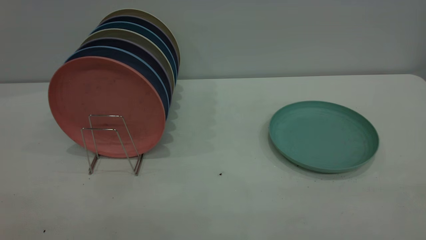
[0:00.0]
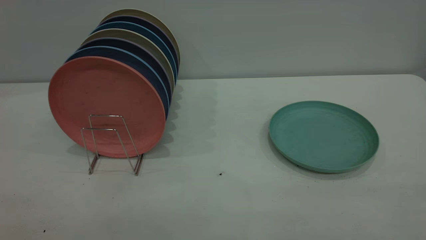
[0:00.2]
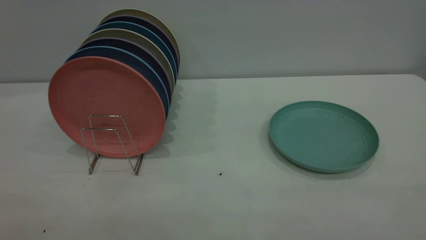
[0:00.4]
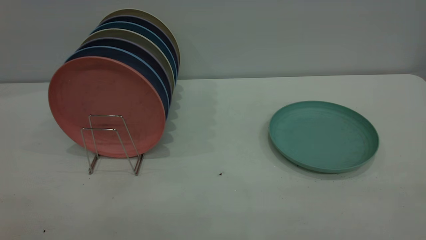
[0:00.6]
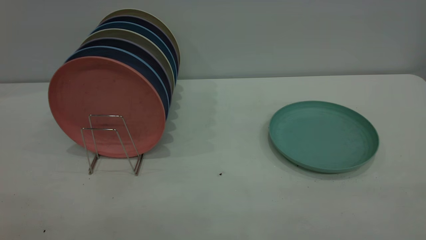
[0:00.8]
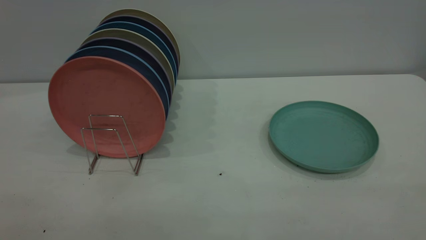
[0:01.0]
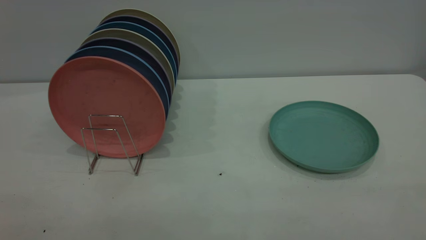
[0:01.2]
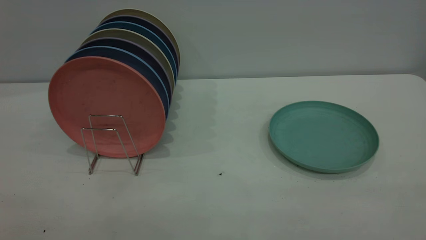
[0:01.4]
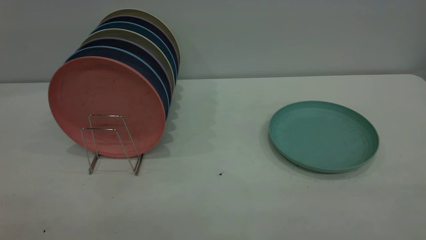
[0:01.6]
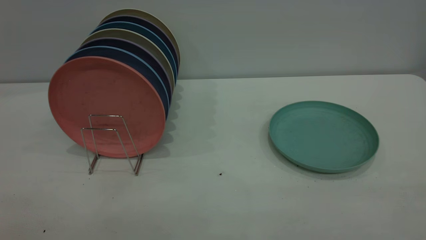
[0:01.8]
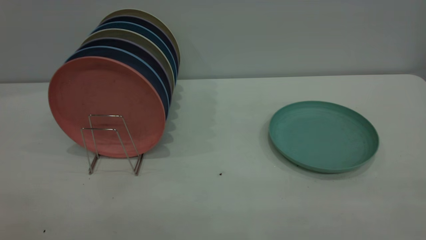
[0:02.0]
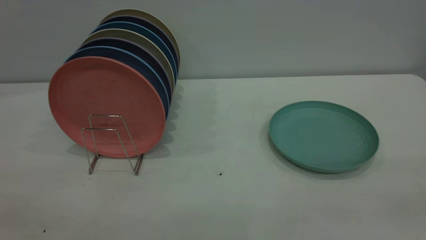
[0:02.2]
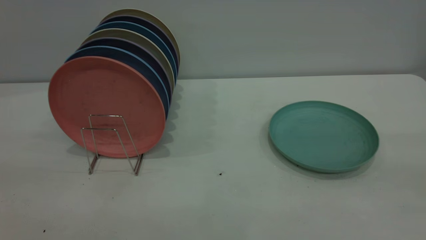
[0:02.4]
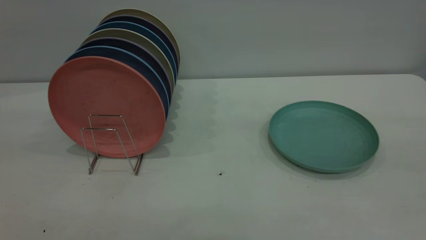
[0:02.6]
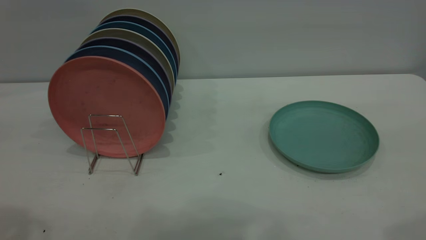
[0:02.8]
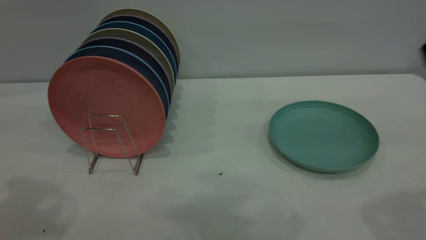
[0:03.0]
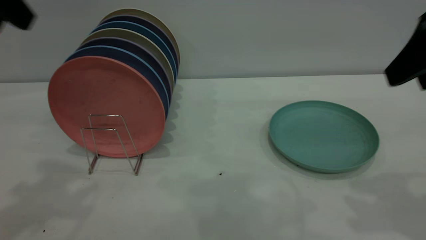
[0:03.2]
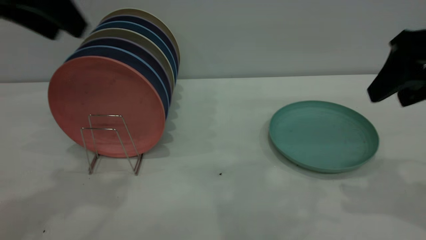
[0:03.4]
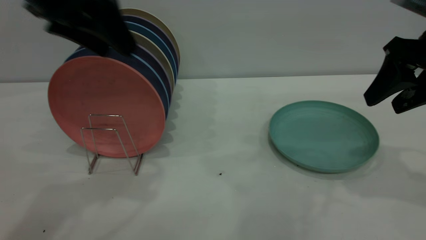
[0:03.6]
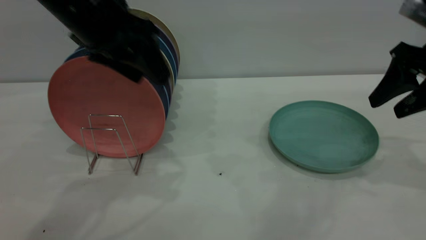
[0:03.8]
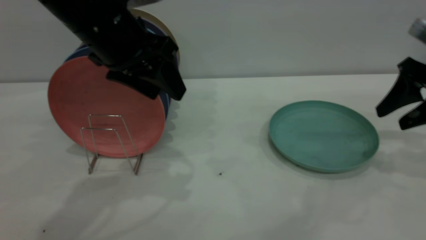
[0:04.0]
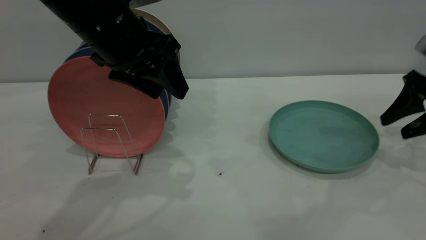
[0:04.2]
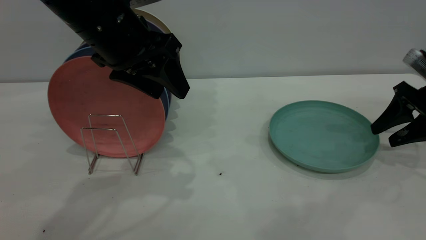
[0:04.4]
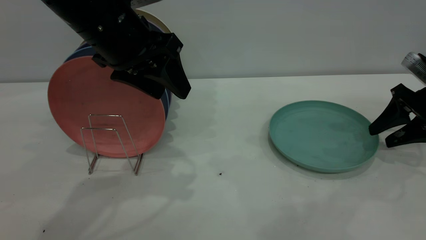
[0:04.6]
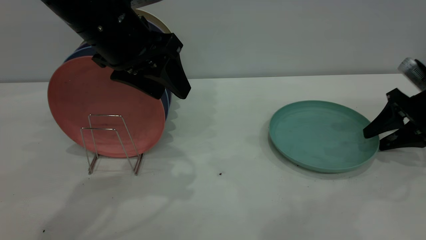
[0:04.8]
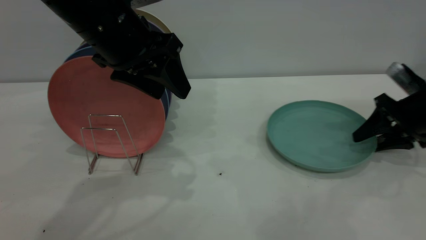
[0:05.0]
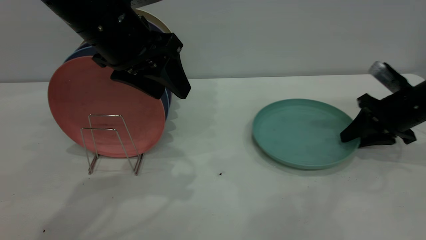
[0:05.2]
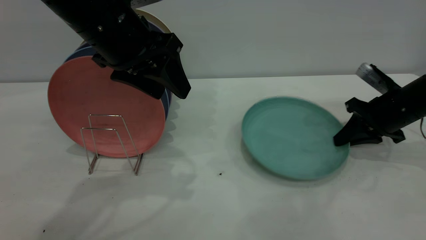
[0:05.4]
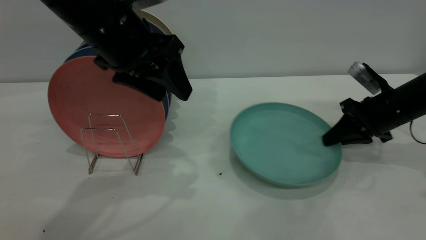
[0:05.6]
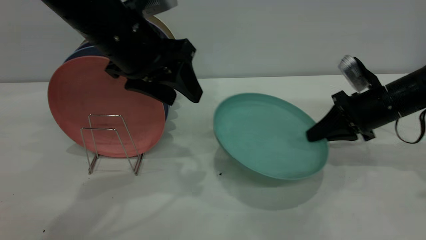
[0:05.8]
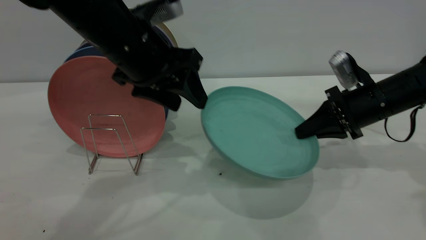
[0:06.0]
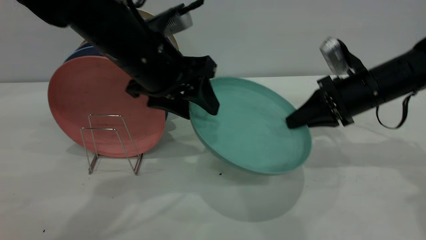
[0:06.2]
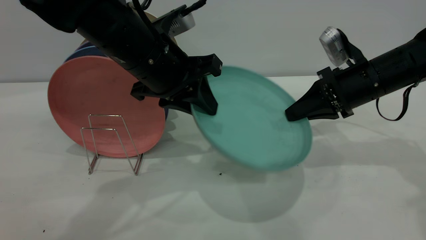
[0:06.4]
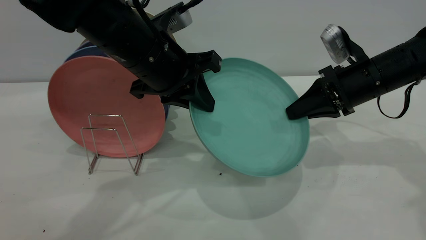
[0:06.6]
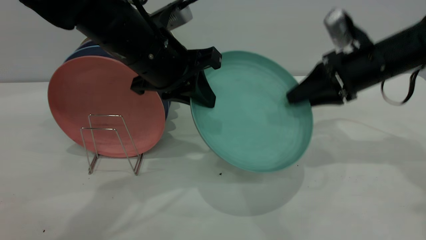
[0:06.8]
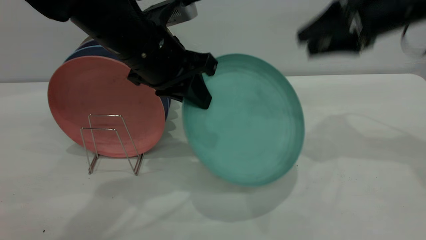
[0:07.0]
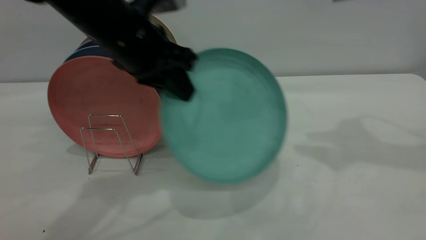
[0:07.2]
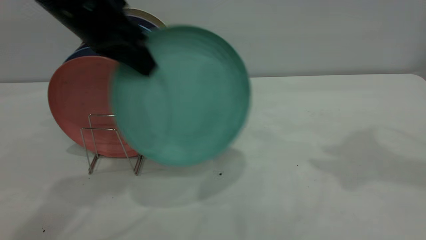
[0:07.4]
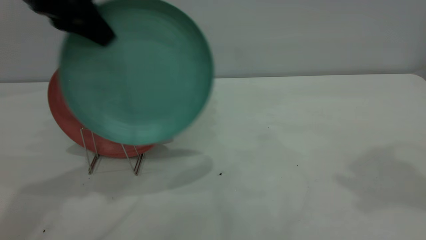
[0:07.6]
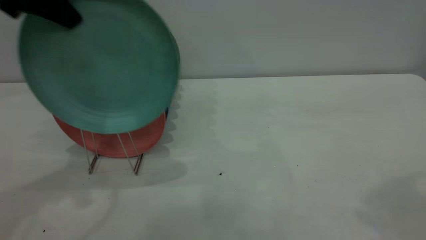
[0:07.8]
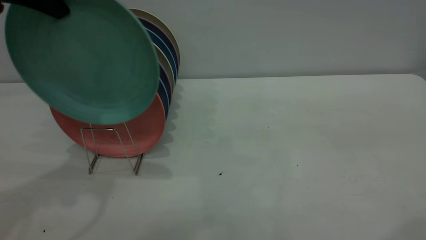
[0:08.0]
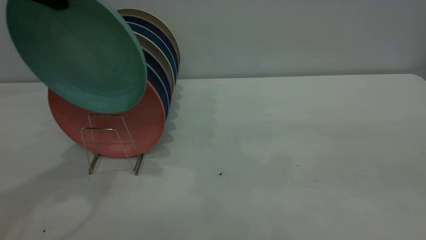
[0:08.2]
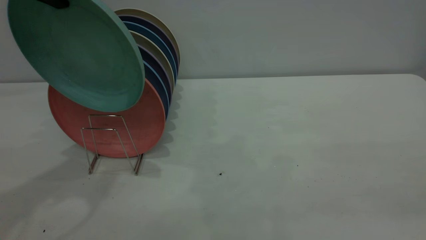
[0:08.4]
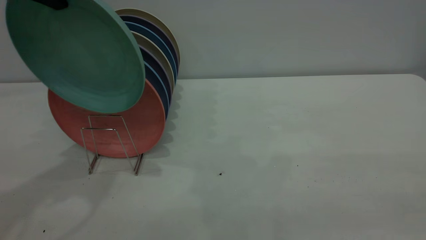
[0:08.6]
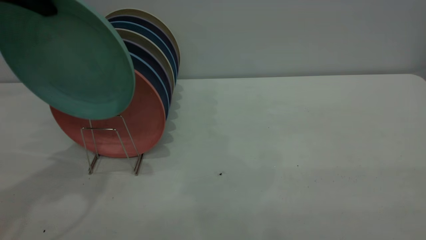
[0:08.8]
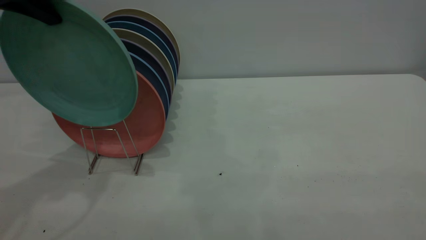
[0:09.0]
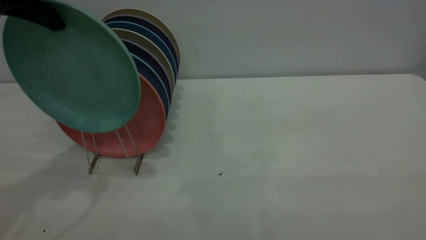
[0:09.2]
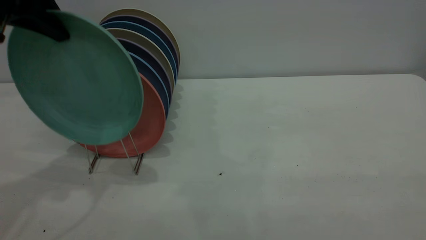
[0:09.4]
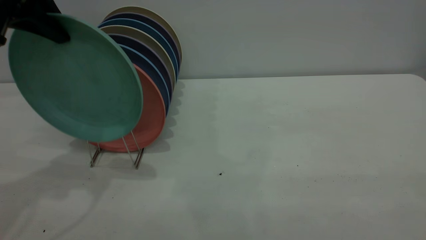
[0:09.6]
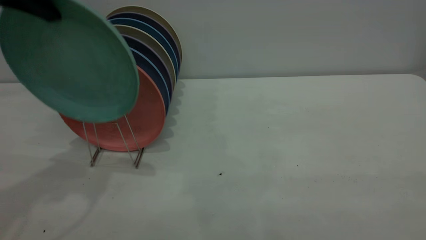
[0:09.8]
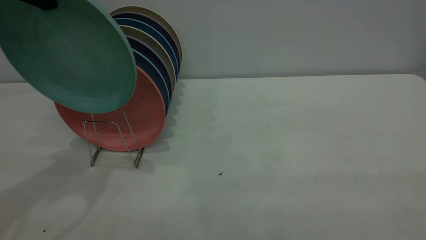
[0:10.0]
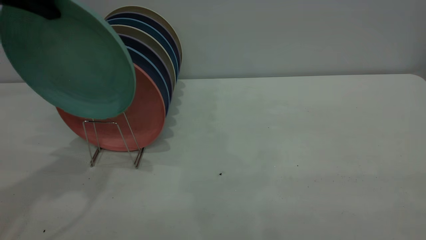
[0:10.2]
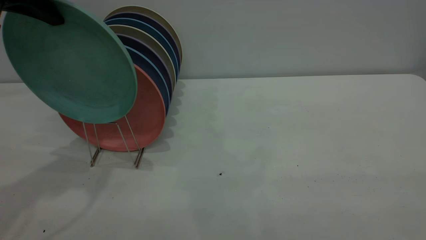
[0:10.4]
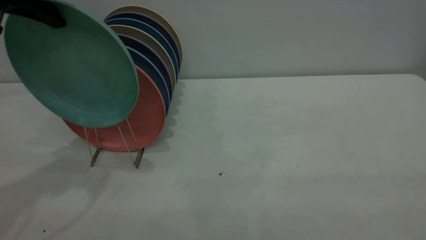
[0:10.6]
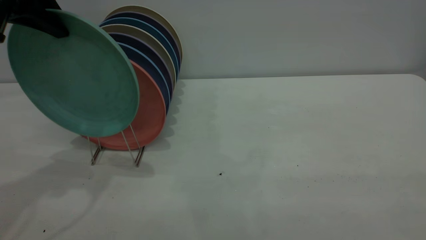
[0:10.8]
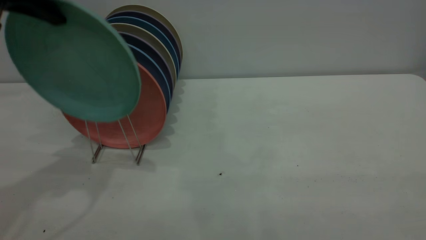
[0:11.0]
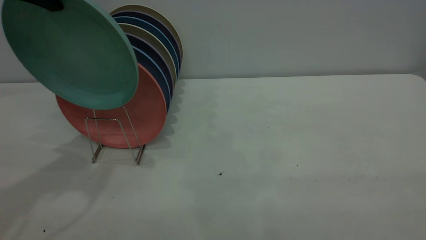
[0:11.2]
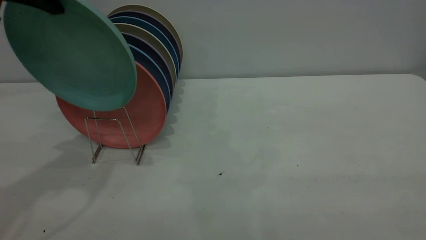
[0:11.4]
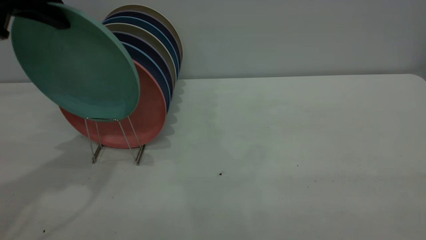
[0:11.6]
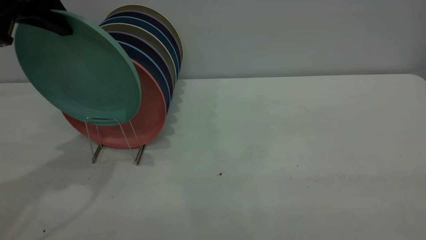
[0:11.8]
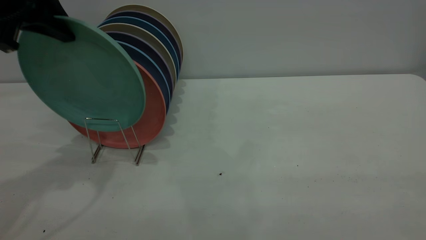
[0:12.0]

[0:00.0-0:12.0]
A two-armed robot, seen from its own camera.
Task of the whole recording: the right gripper grasp the green plate, the right gripper pass the green plate to the left gripper, and the left gripper place the green plate on the plate rack.
Step, 0:00.0 to 0:05.6: Pick up the plate with the right gripper.
Step, 0:05.8 to 0:06.8: Pass the plate from the right gripper to the left gripper.
0:00.0 to 0:01.6: Both grippers stay put.
0:03.0 to 0:04.4: The left gripper is displaced to the right, downward and forward by about 20 cm; the right gripper moves downward, forward and to the right, approximately 30 cm.
0:04.4 to 0:06.0: The right gripper moves to the left, approximately 10 cm, and closes.
0:06.0 to 0:07.6: The right gripper moves upward, approximately 35 cm, and opens; the left gripper moves to the left and upward, some 15 cm, and closes.
0:07.6 to 0:09.0: The right gripper is displaced backward by some 30 cm.
0:09.0 to 0:12.0: There are only small adjustments of the grippers.

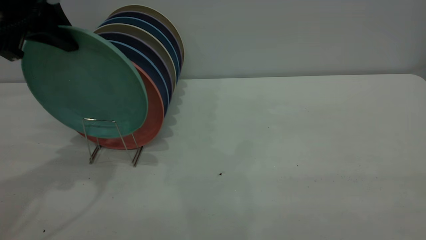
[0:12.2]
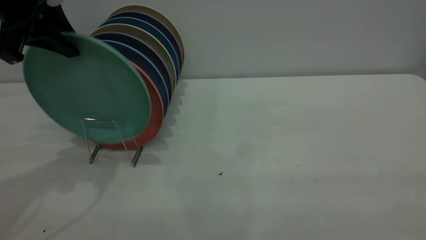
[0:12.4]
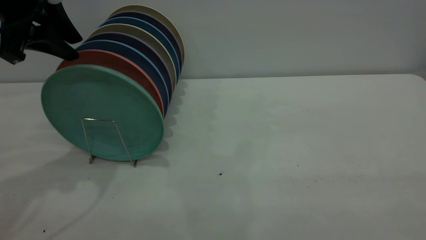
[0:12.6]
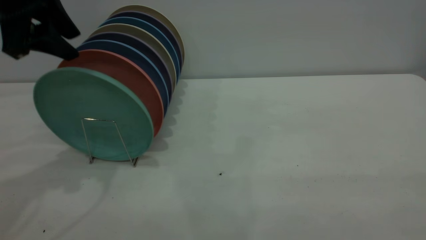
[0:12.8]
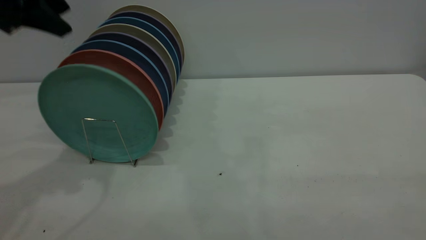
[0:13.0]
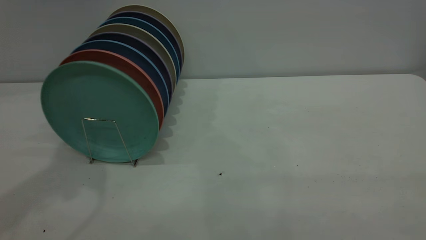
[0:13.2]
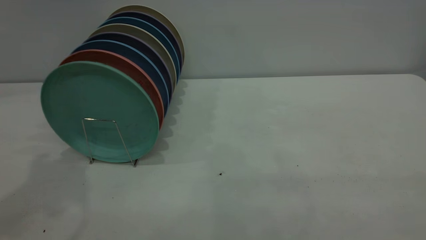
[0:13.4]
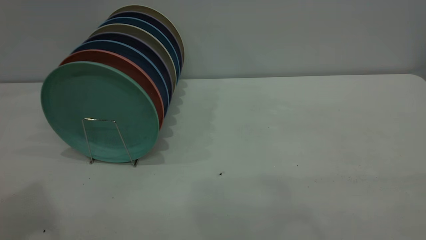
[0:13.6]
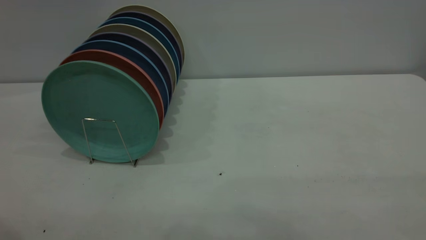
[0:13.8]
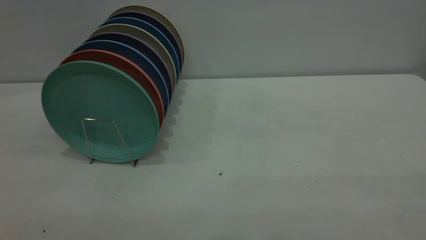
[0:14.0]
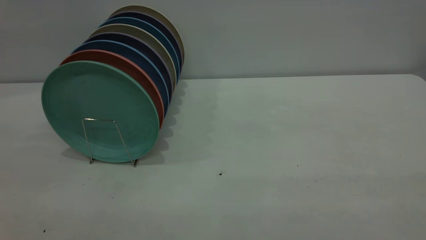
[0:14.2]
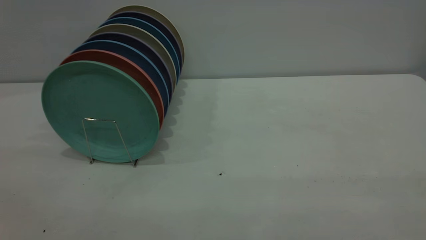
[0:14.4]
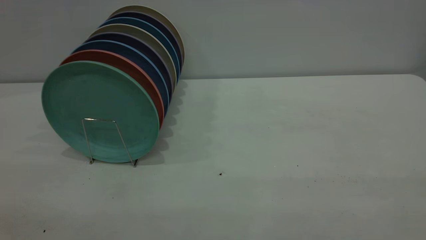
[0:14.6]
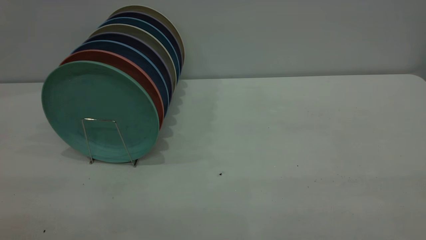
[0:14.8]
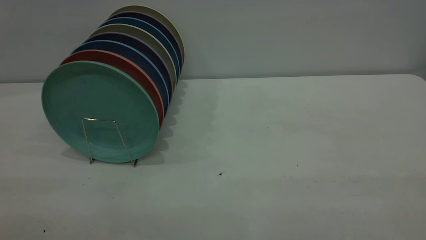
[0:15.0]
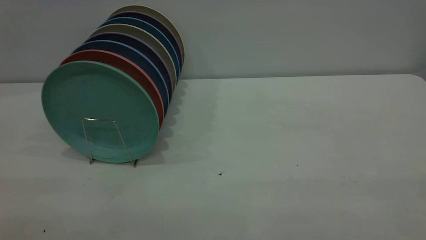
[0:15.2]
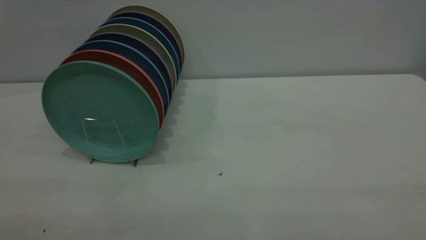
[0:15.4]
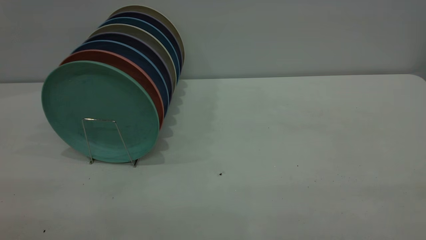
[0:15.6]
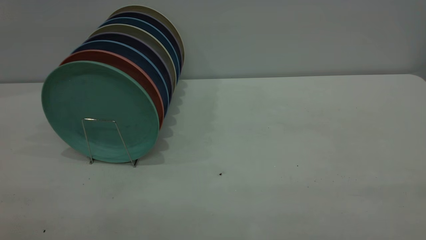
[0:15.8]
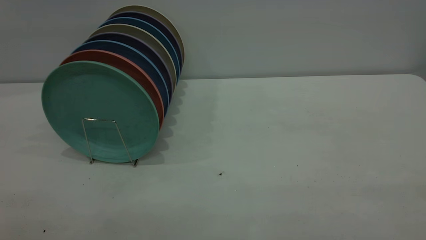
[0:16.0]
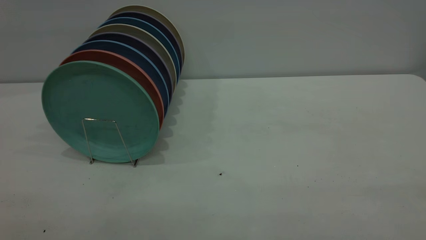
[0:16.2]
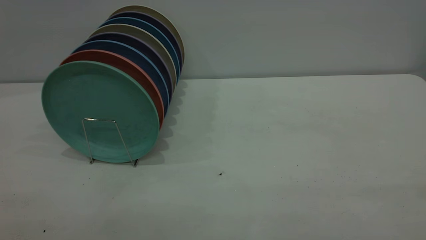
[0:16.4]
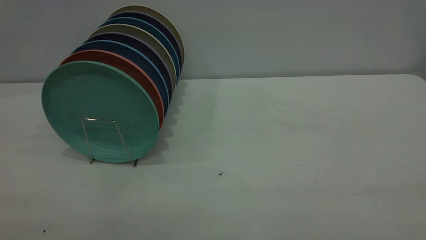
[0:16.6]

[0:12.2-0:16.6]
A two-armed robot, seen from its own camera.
Task of the whole recording: the right gripper grasp the green plate, the right gripper pass the green plate to the left gripper, and the left gripper place the green plate on the plate rack.
0:12.2 to 0:13.6: The left gripper is displaced upward and backward by approximately 20 cm, and opens up.
